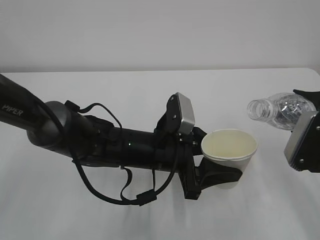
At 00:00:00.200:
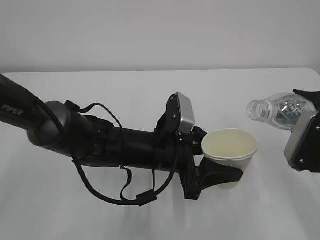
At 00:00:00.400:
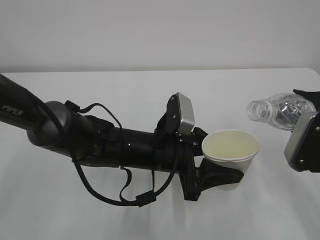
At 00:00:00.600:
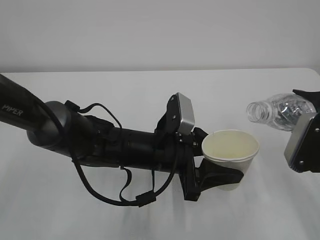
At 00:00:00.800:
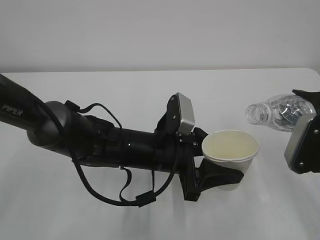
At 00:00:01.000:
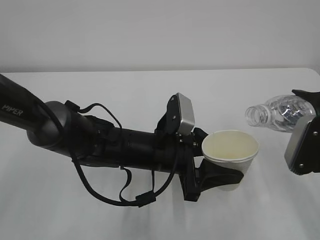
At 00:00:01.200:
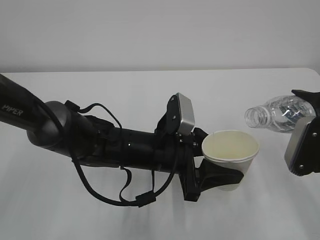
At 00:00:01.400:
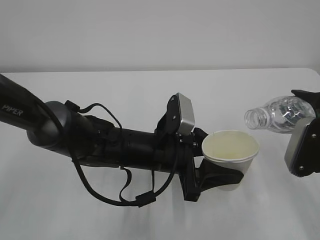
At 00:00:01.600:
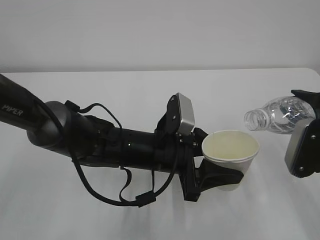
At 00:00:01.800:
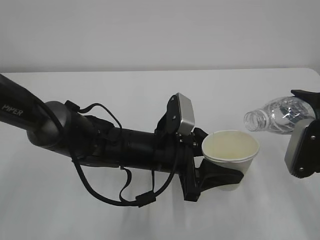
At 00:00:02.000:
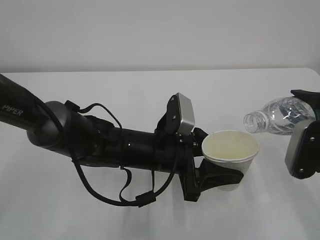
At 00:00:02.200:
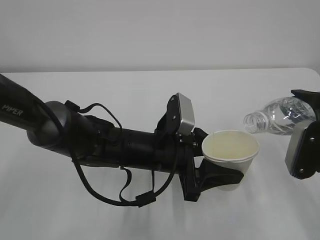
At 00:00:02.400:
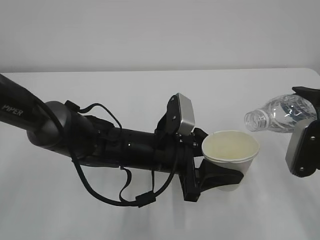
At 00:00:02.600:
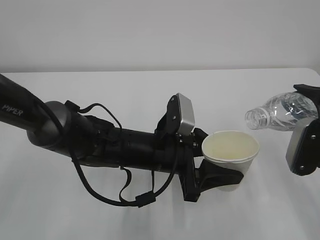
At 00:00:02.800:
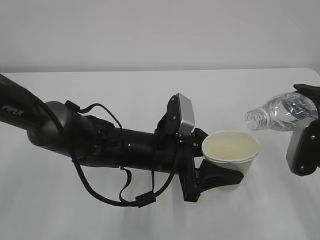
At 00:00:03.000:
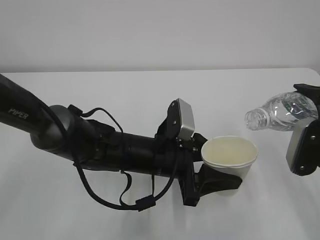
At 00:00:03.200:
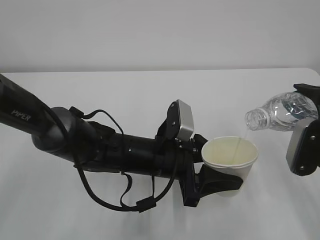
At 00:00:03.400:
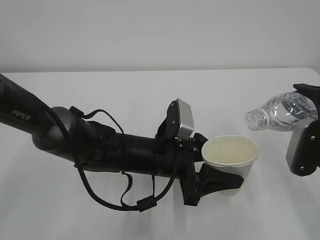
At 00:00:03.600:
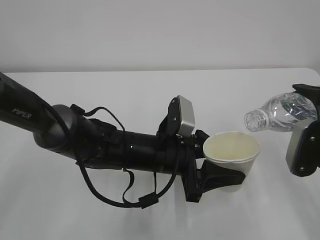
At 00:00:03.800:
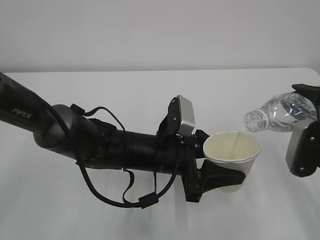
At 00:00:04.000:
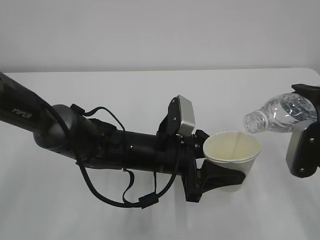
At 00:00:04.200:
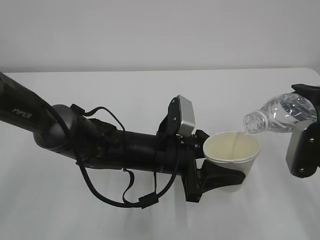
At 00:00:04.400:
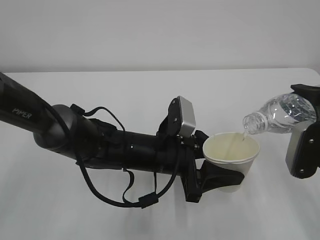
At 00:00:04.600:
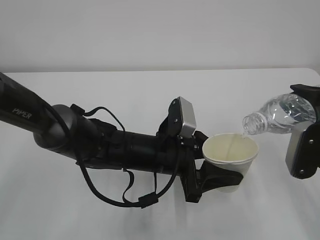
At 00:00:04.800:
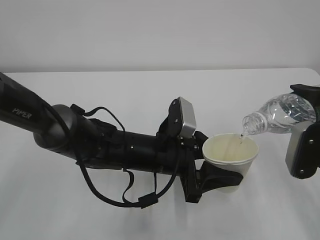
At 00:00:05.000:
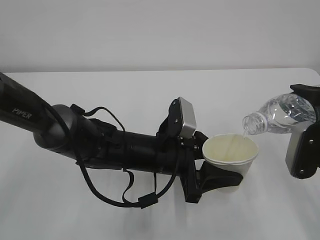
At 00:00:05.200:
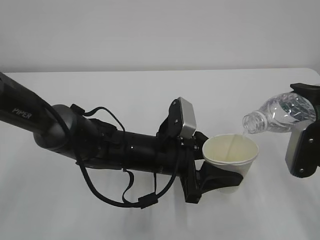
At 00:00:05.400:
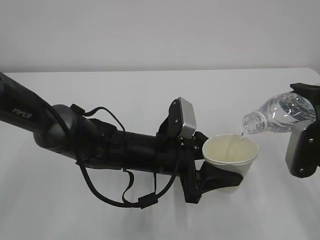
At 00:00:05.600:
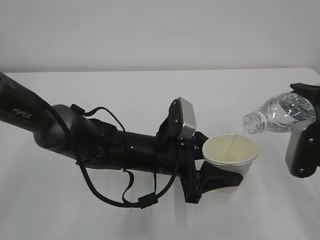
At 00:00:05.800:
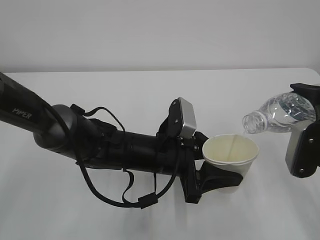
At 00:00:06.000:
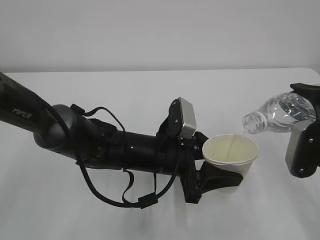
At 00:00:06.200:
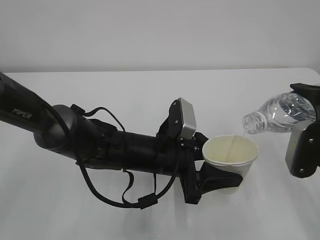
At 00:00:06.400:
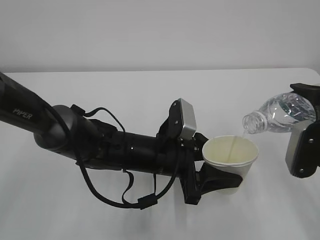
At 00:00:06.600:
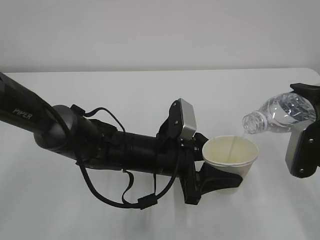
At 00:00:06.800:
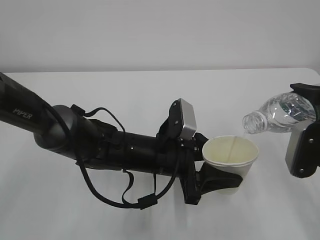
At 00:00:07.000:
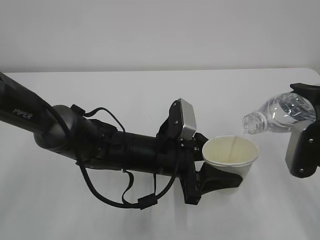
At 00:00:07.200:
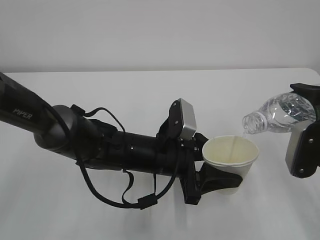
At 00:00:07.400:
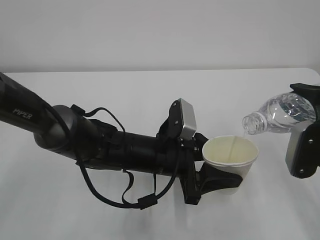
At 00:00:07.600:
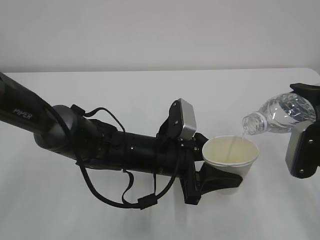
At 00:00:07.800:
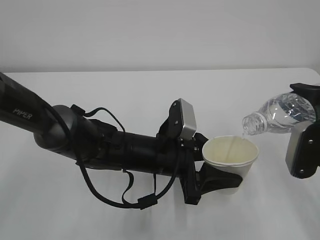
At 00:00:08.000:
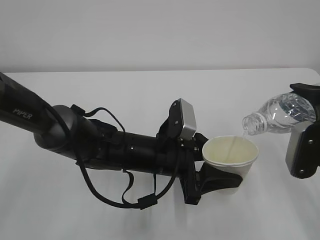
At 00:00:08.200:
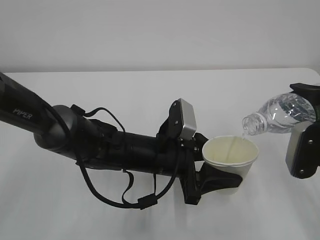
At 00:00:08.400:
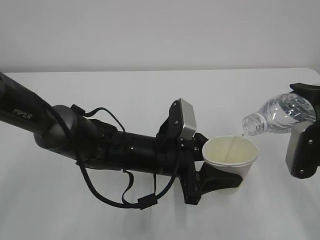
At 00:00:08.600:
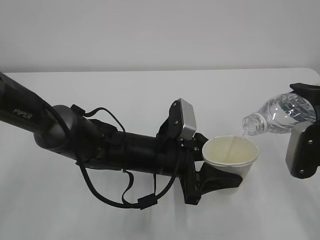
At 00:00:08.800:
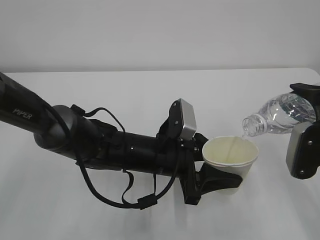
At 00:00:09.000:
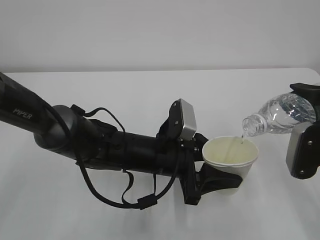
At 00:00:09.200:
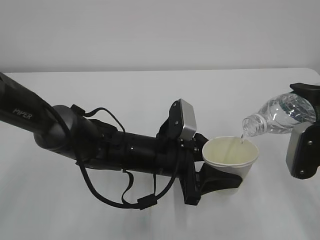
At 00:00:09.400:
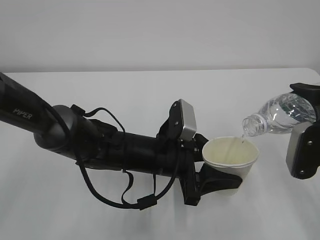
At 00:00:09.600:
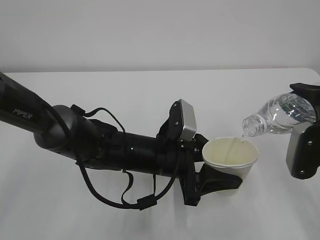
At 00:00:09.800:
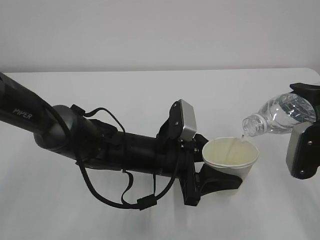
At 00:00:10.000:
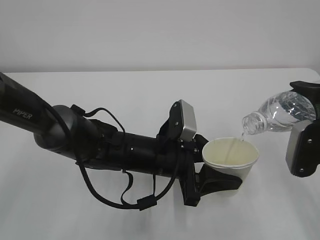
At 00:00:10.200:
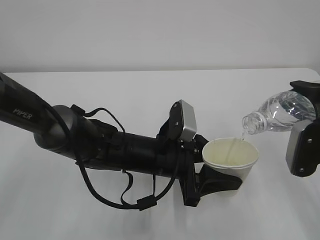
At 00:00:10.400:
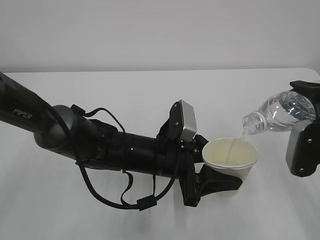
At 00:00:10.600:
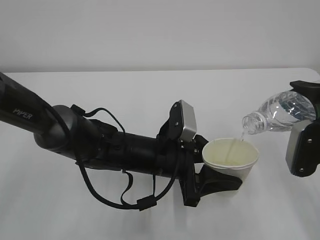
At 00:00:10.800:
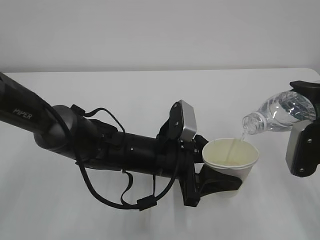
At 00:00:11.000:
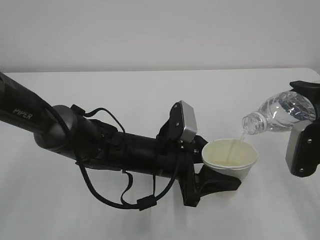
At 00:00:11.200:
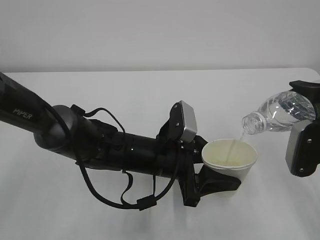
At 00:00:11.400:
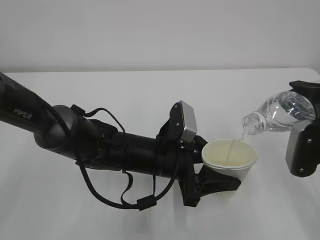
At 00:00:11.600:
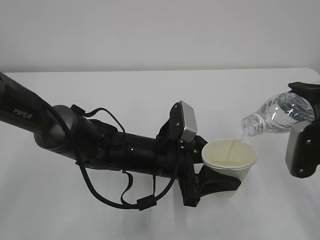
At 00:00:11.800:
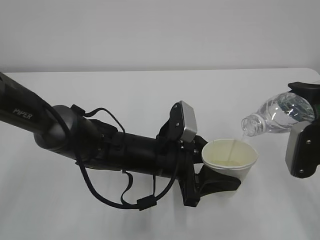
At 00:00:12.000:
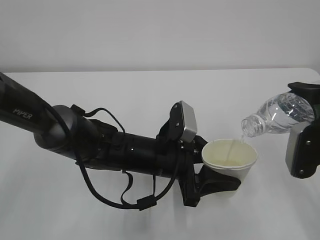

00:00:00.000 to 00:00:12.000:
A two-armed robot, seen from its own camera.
00:00:00.000 to 00:00:03.000: The grippers make only small movements.
00:00:03.000 to 00:00:07.600: Both grippers stay put.
00:00:07.600 to 00:00:12.000: Both grippers stay about where they are.

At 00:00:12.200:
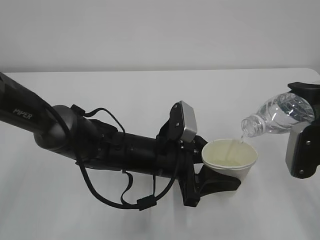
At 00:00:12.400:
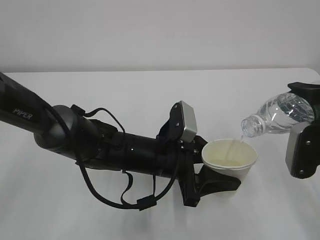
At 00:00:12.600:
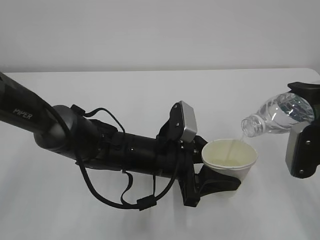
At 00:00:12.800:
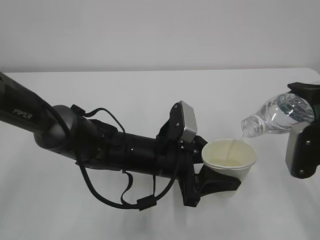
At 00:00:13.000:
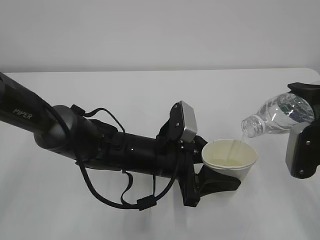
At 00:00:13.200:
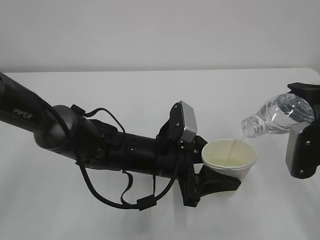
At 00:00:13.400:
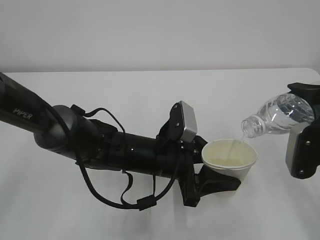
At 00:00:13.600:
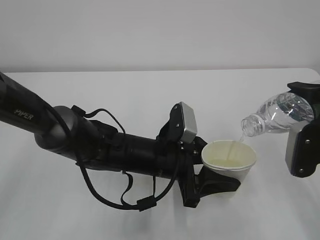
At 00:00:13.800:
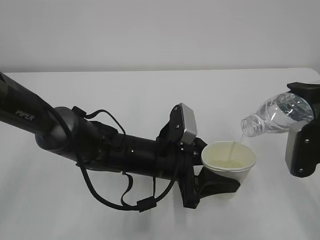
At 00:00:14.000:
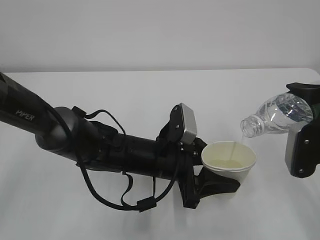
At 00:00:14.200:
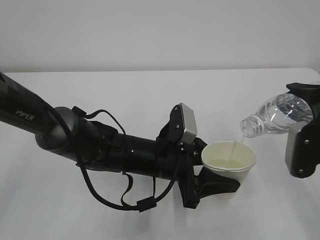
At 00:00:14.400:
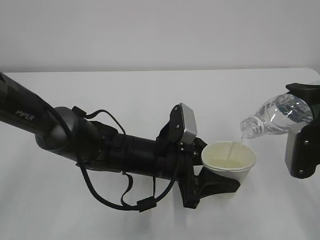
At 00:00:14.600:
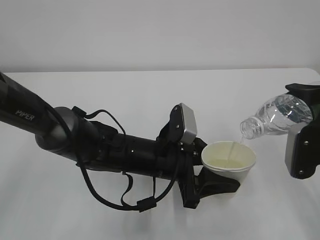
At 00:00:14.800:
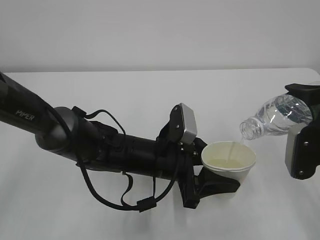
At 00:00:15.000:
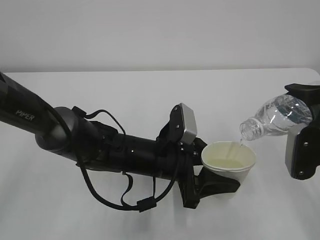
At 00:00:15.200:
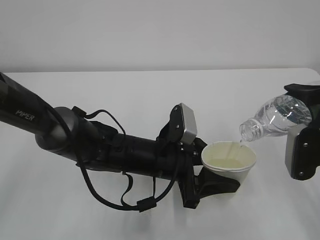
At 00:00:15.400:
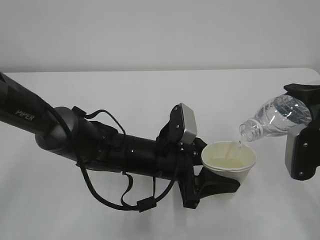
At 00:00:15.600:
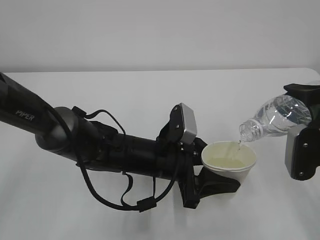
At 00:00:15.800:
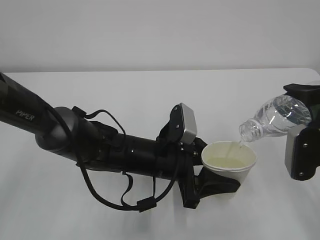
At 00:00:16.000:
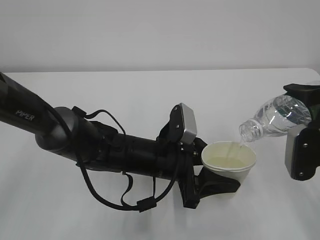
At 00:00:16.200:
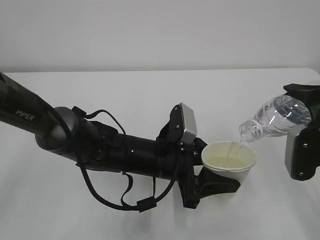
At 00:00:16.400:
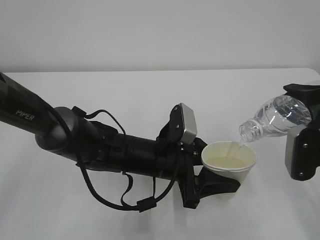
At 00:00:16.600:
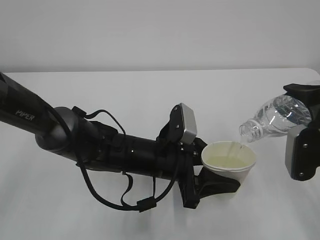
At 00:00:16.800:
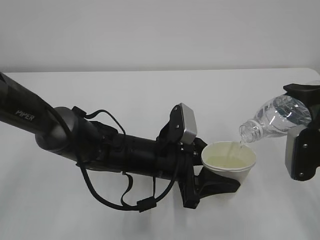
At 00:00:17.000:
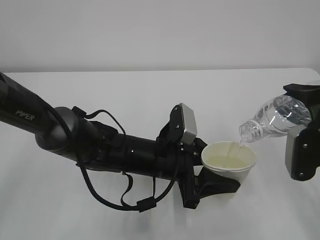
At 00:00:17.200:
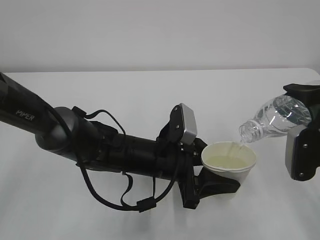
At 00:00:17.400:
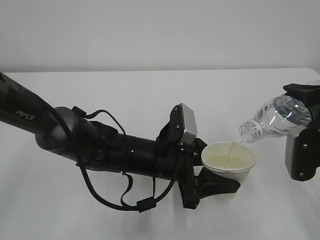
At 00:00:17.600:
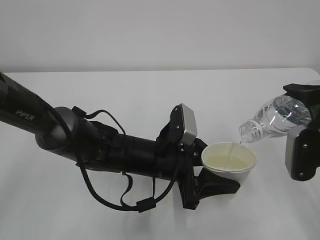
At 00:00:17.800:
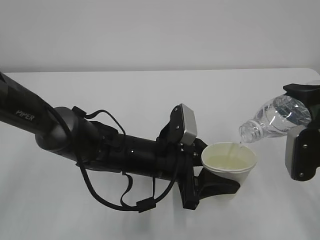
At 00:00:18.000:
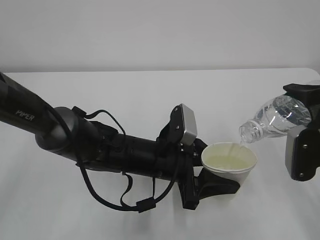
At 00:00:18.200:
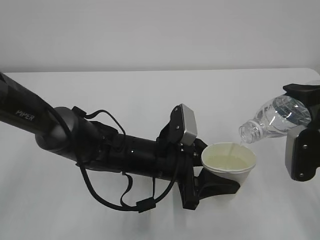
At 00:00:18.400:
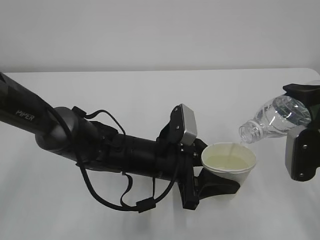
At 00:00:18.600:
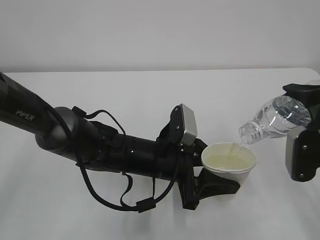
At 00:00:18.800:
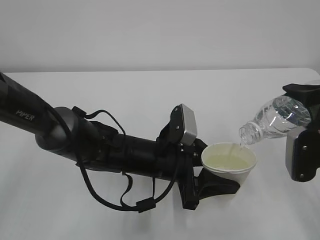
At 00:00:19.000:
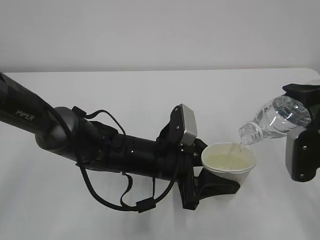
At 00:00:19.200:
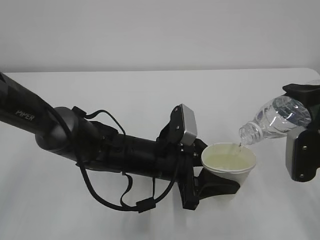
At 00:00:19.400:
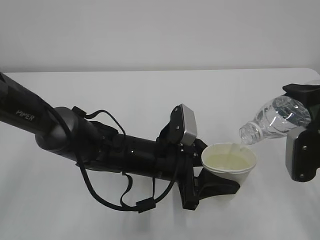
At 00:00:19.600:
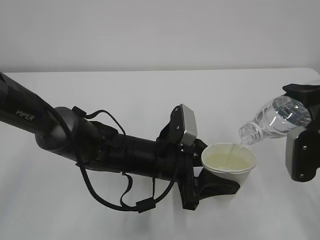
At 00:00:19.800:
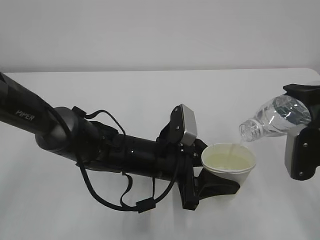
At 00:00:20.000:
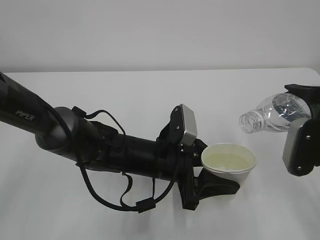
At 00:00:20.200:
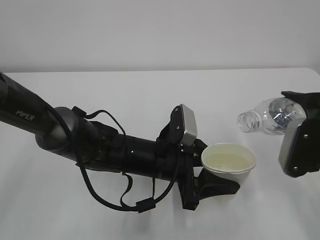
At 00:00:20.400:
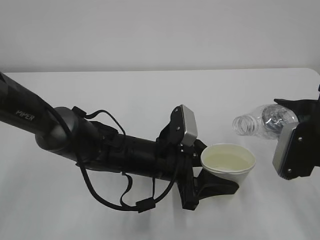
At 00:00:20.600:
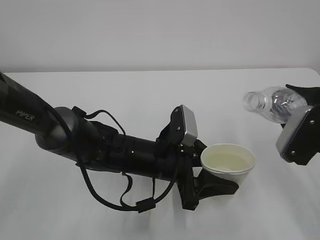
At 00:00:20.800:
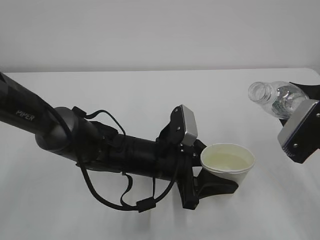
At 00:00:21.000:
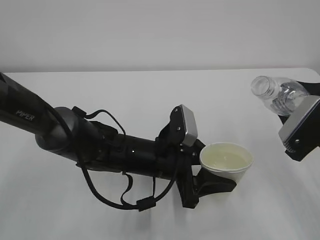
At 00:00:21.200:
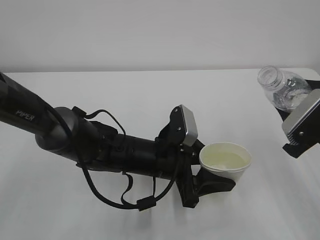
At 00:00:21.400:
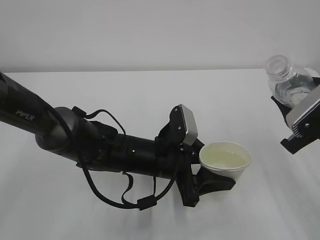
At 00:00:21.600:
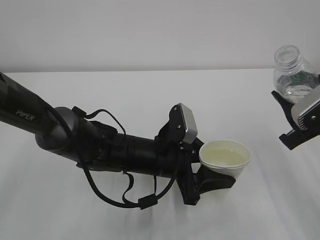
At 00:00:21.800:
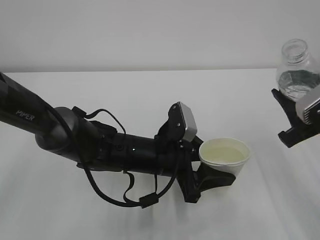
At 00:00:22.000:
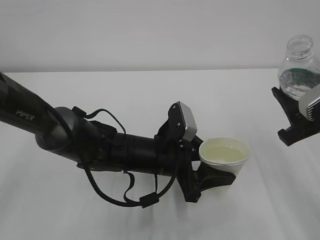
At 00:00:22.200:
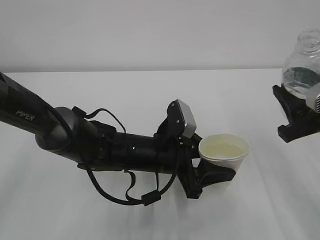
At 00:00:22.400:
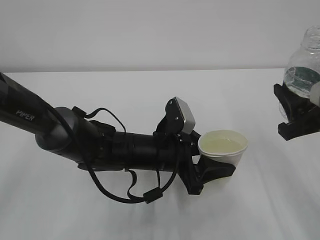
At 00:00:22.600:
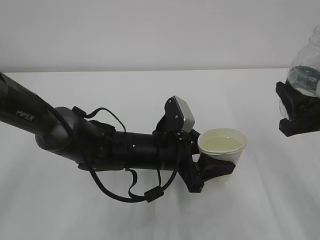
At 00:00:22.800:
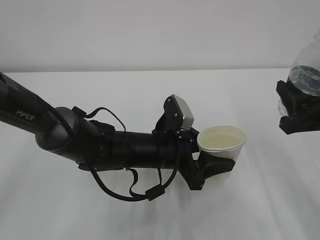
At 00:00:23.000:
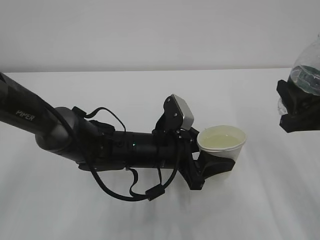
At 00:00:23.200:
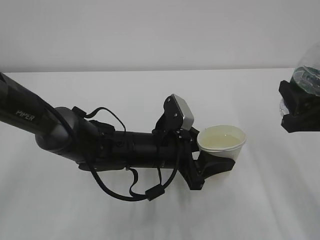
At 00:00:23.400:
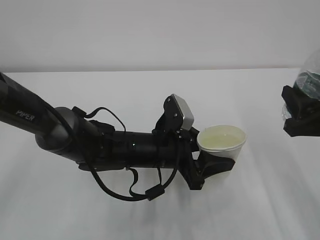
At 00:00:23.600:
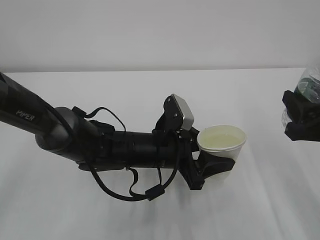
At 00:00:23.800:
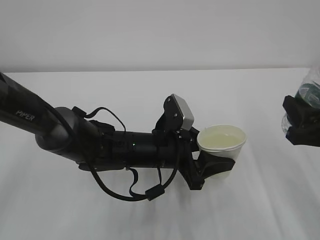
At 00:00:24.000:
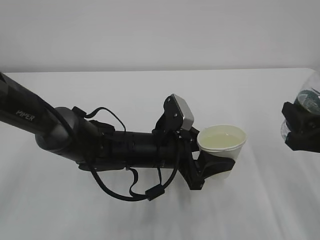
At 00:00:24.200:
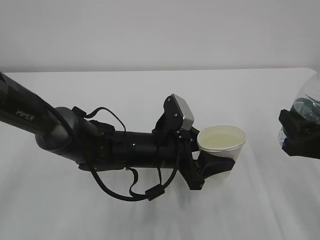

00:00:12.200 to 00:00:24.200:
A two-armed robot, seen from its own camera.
00:00:12.200 to 00:00:18.200: The two grippers keep their place.
00:00:18.200 to 00:00:19.800: The two grippers keep their place.
00:00:22.600 to 00:00:24.200: There are only small adjustments of the grippers.
